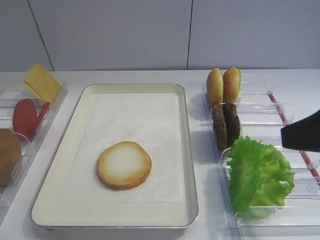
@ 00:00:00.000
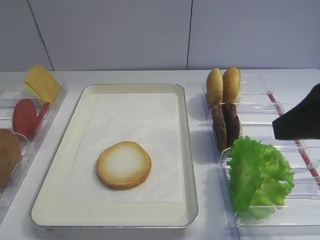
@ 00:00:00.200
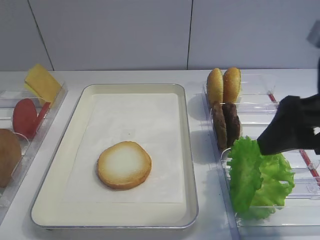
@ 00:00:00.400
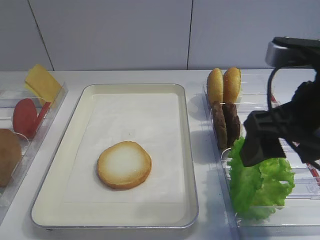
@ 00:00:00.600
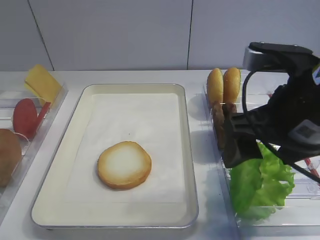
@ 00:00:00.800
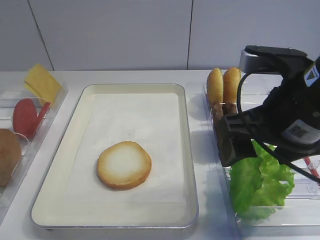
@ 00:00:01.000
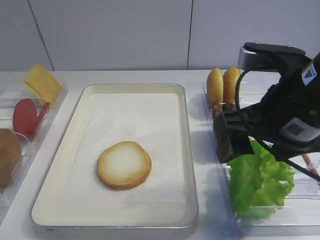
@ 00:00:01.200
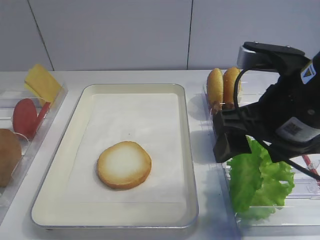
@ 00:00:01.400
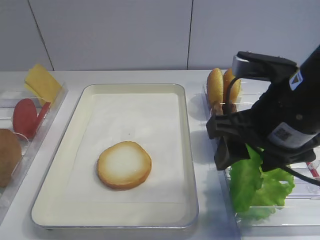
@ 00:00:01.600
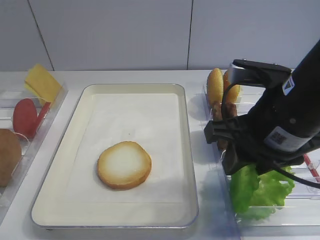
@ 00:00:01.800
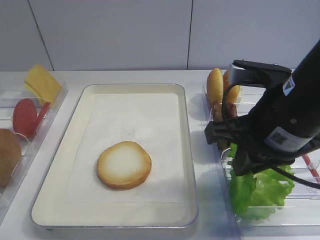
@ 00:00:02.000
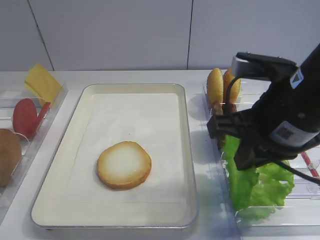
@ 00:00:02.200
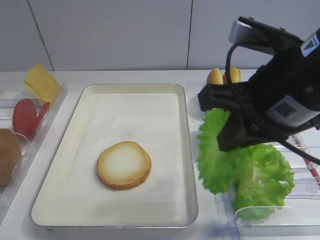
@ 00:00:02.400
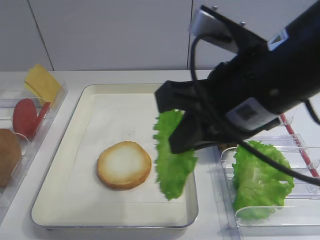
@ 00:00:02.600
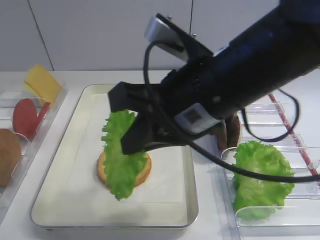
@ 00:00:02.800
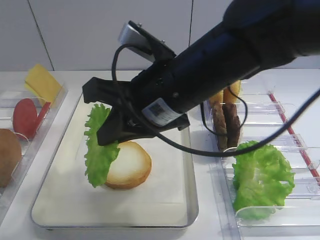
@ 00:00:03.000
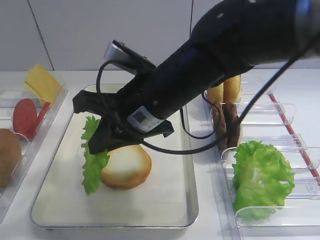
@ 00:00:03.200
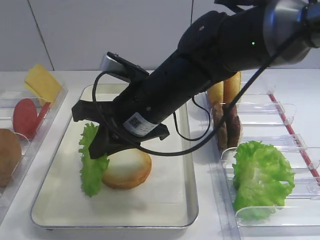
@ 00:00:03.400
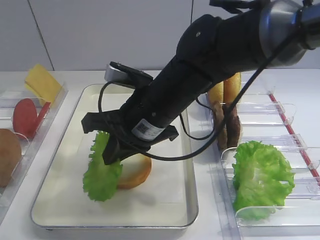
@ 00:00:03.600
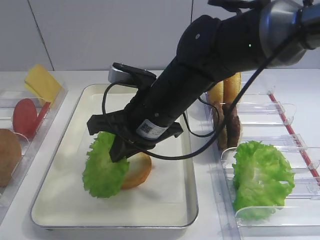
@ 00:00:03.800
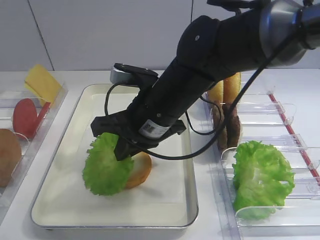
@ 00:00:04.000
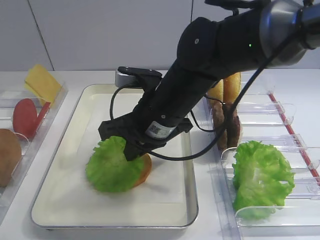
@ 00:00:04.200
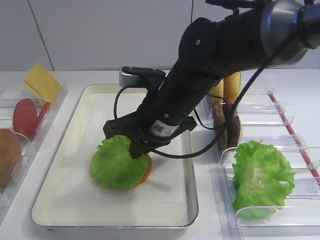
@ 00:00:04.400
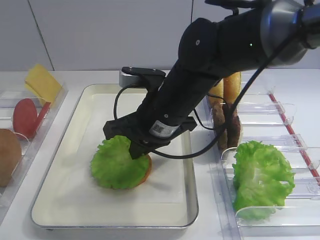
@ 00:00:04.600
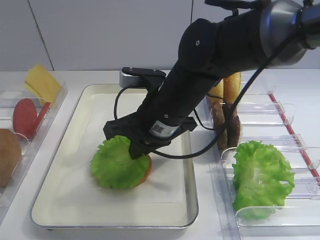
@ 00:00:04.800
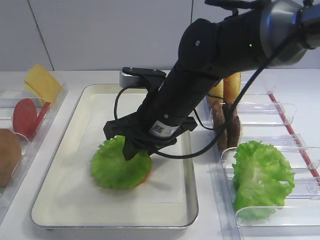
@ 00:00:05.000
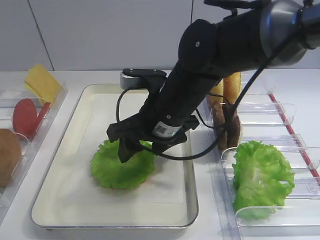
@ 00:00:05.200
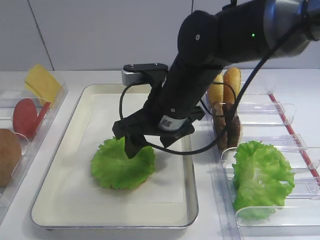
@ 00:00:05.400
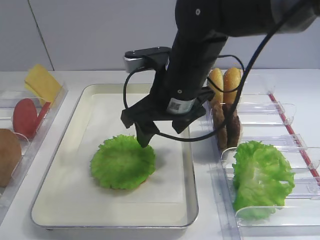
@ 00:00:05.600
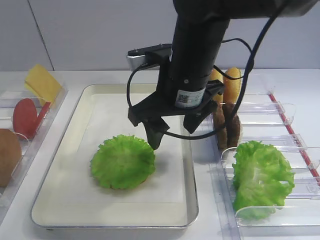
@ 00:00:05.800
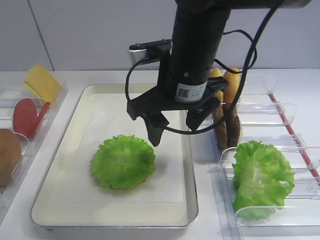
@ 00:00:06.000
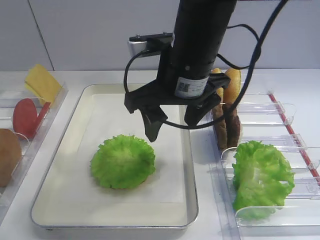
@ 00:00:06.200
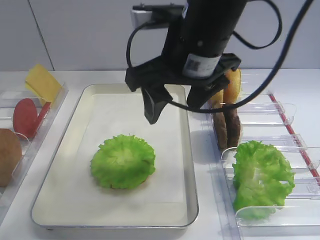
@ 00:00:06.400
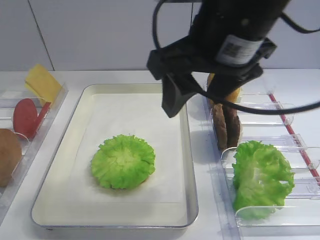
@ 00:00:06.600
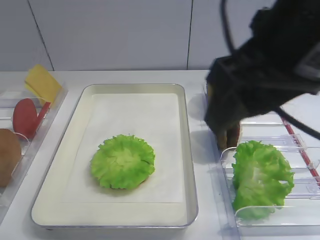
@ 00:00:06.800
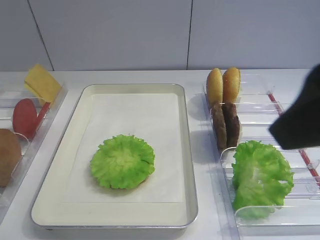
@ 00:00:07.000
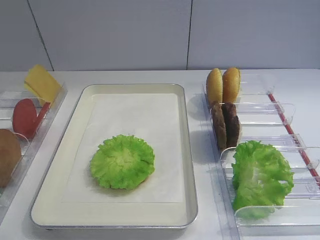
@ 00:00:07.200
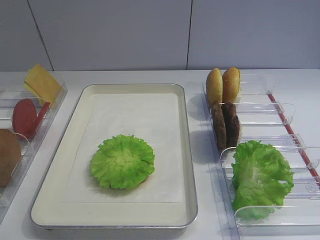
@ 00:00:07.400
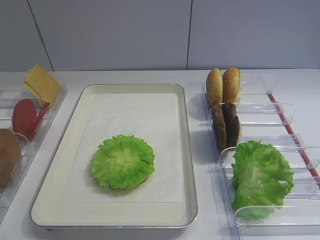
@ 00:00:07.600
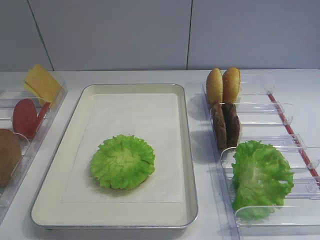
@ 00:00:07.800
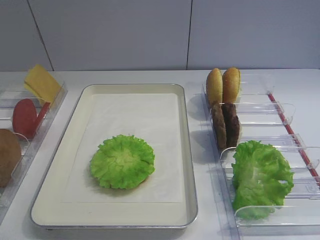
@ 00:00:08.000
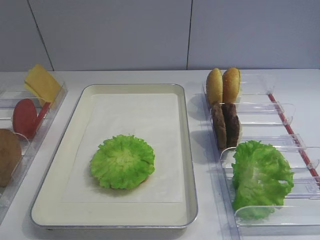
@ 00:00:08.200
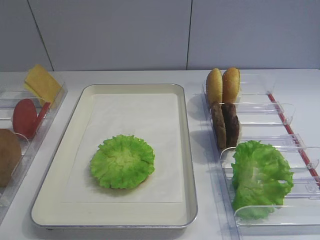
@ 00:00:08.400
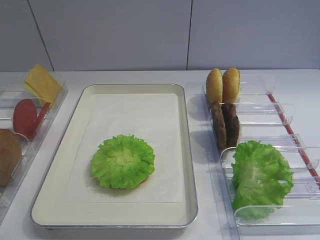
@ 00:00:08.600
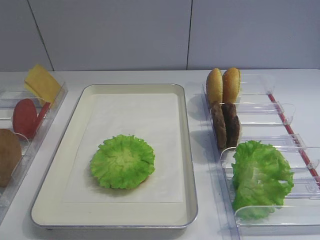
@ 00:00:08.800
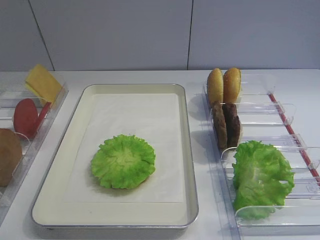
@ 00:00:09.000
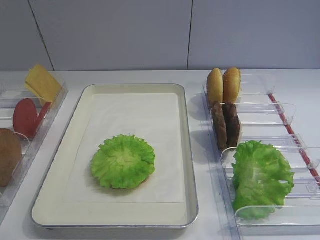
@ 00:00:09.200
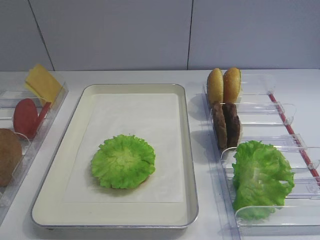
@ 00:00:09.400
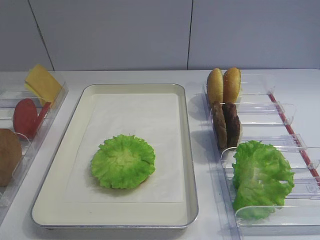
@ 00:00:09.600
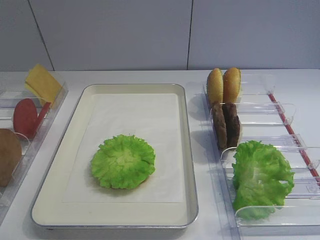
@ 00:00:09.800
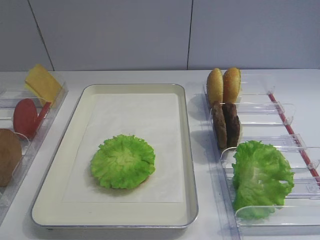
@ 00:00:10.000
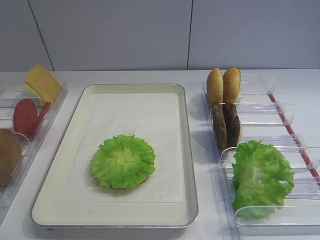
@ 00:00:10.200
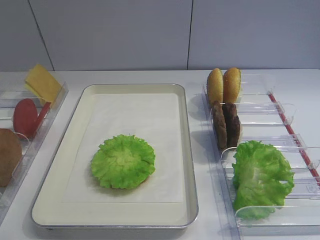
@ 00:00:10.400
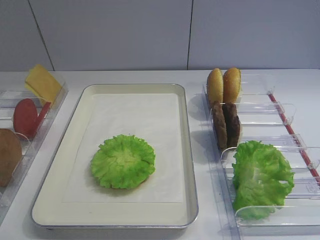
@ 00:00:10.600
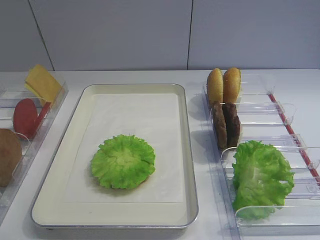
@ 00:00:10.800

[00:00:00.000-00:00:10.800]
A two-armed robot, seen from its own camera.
Step, 00:00:00.000 to 00:00:02.200: Pick up the lettuce leaf with the right gripper.
Step, 00:00:02.600 to 00:00:05.400: Place the lettuce leaf on the bread slice with the right gripper.
00:00:00.000 to 00:00:01.600: The right gripper shifts roughly 10 cm to the left and forward.
00:00:01.600 to 00:00:03.000: The right gripper moves to the left, approximately 10 cm, and closes its fingers.
00:00:03.000 to 00:00:04.600: The right gripper shifts some 10 cm downward and forward.
00:00:04.600 to 00:00:06.200: The right gripper travels upward by some 5 cm, and opens.
00:00:06.200 to 00:00:07.800: The right gripper travels backward and to the right by some 35 cm.
00:00:09.200 to 00:00:10.800: Both grippers stay put.

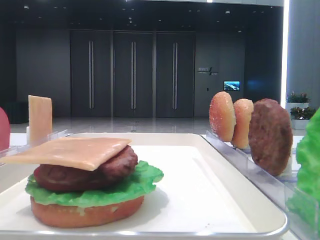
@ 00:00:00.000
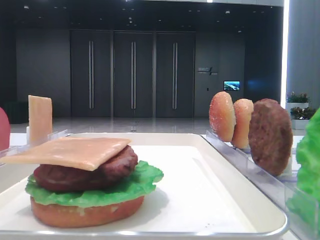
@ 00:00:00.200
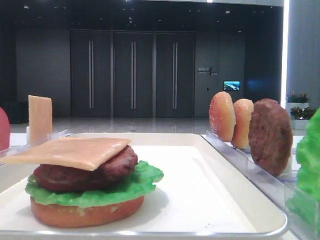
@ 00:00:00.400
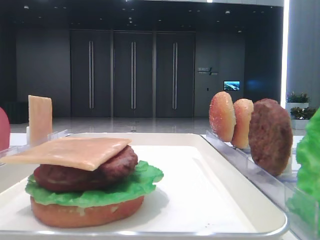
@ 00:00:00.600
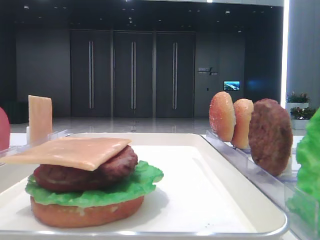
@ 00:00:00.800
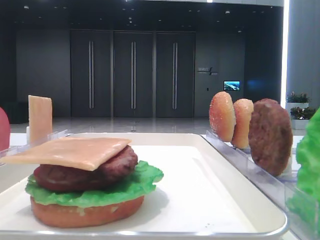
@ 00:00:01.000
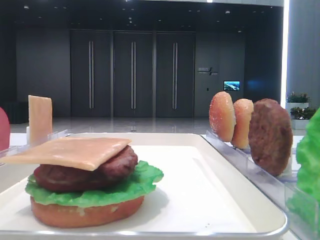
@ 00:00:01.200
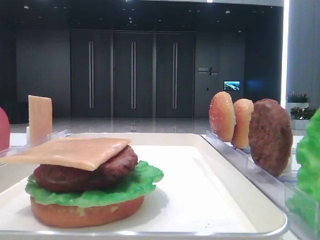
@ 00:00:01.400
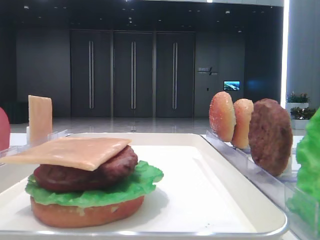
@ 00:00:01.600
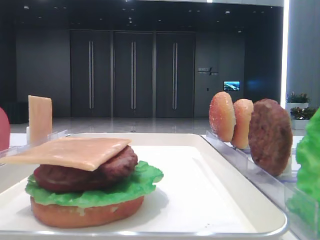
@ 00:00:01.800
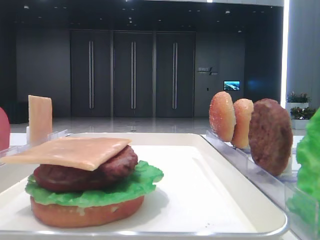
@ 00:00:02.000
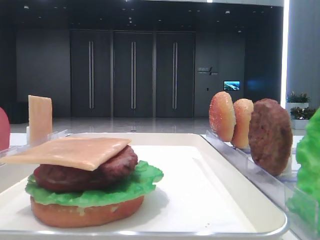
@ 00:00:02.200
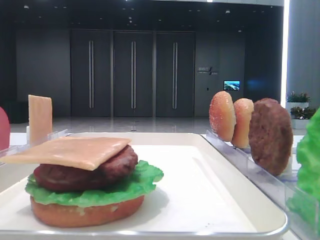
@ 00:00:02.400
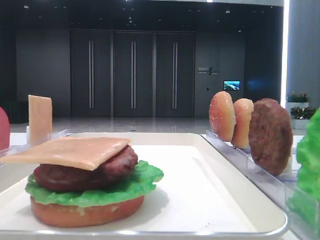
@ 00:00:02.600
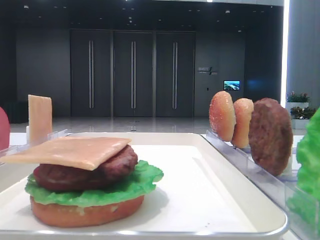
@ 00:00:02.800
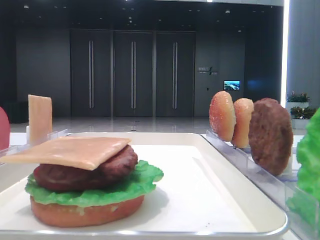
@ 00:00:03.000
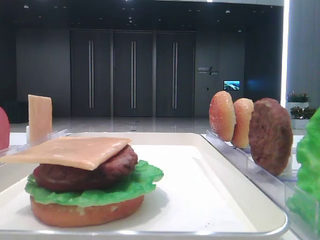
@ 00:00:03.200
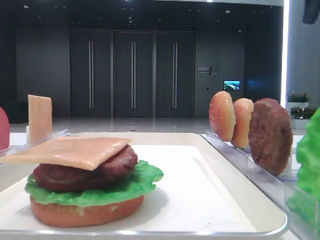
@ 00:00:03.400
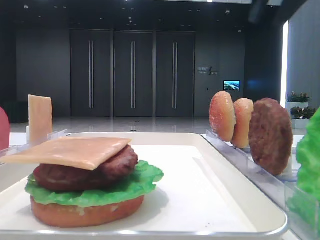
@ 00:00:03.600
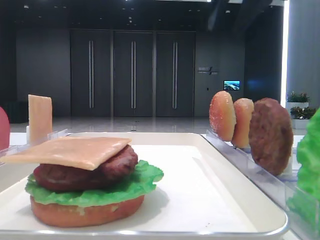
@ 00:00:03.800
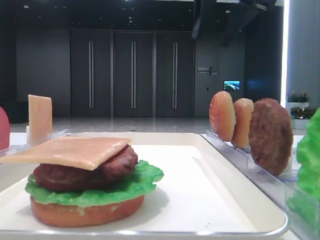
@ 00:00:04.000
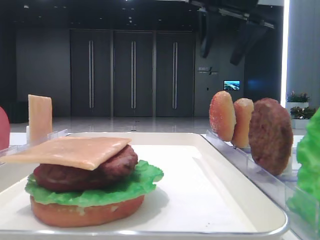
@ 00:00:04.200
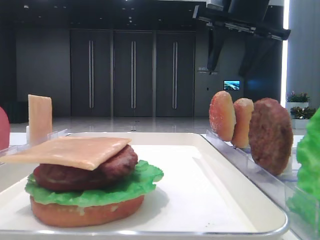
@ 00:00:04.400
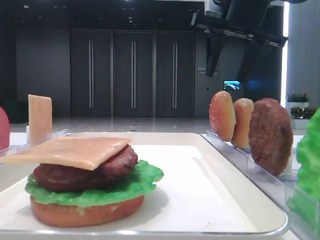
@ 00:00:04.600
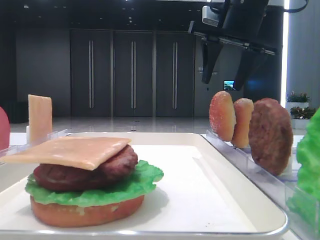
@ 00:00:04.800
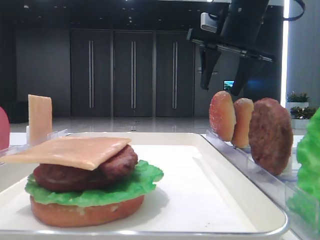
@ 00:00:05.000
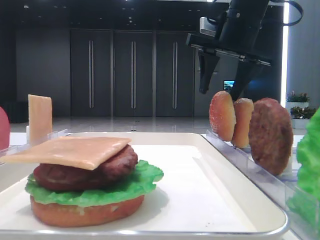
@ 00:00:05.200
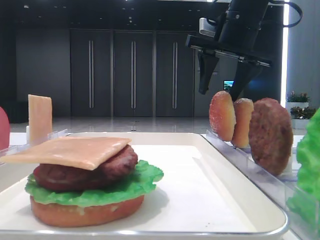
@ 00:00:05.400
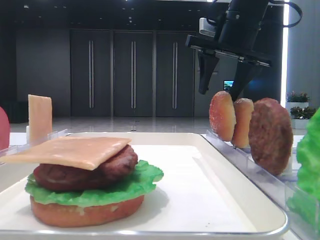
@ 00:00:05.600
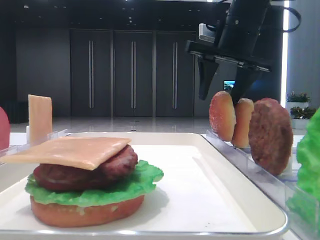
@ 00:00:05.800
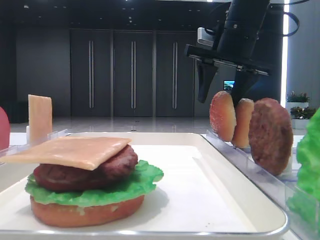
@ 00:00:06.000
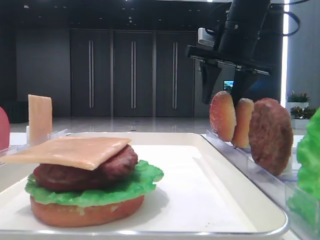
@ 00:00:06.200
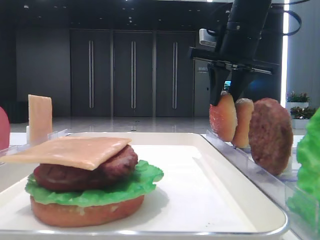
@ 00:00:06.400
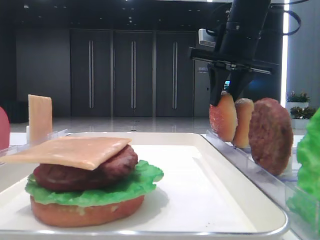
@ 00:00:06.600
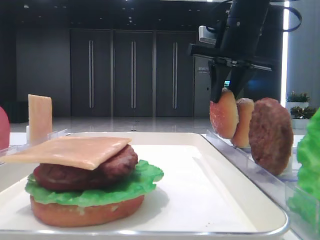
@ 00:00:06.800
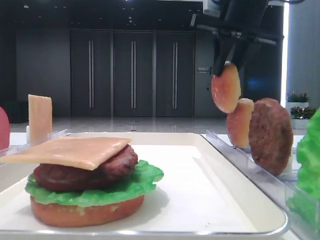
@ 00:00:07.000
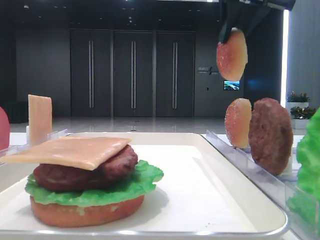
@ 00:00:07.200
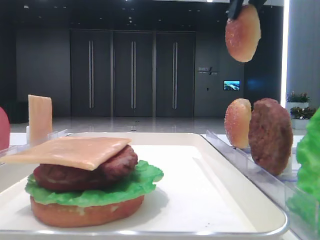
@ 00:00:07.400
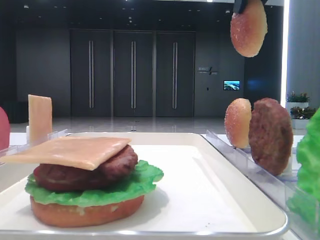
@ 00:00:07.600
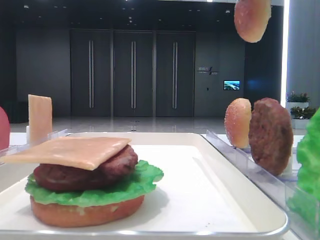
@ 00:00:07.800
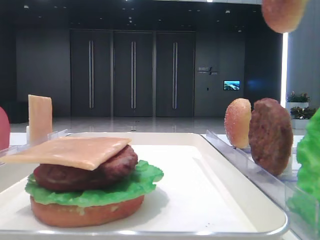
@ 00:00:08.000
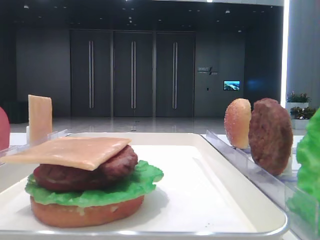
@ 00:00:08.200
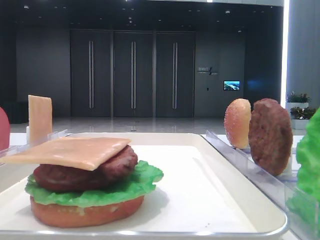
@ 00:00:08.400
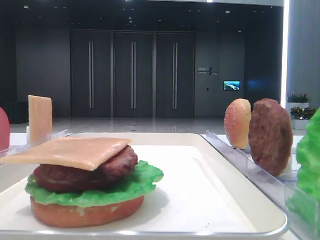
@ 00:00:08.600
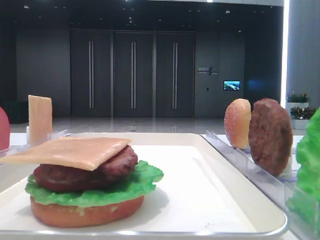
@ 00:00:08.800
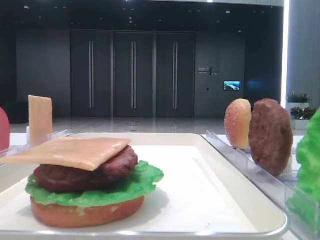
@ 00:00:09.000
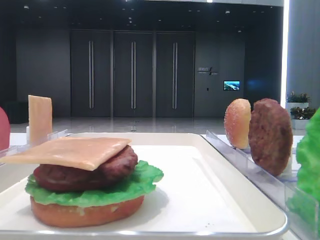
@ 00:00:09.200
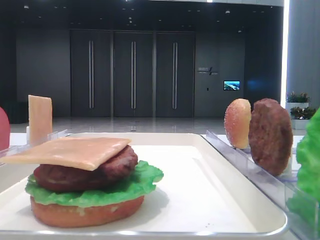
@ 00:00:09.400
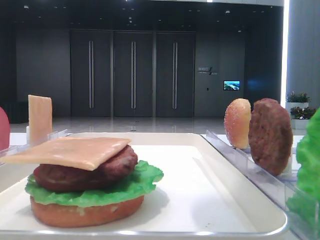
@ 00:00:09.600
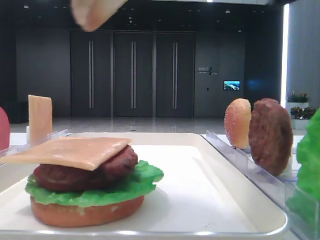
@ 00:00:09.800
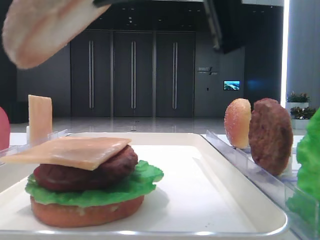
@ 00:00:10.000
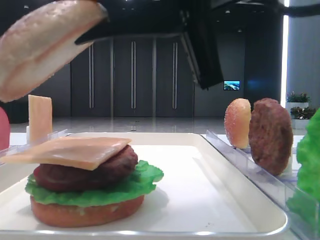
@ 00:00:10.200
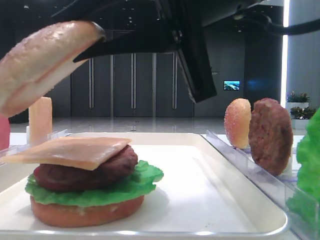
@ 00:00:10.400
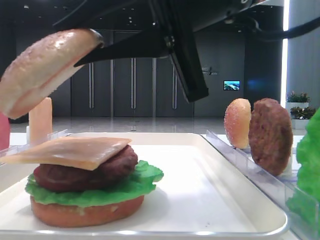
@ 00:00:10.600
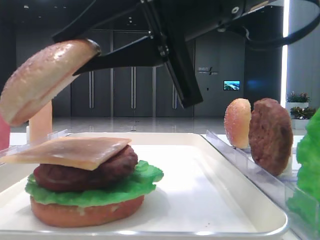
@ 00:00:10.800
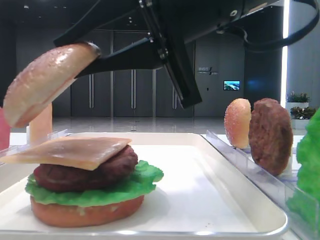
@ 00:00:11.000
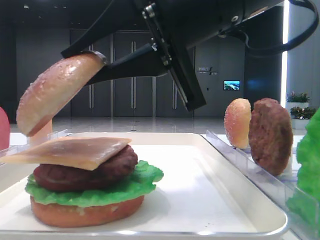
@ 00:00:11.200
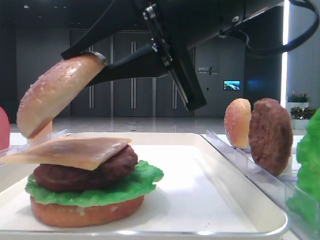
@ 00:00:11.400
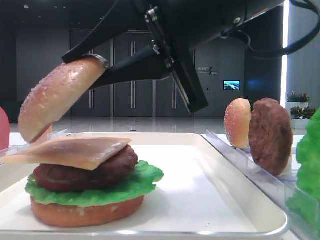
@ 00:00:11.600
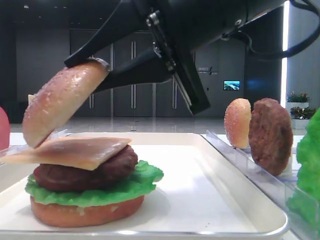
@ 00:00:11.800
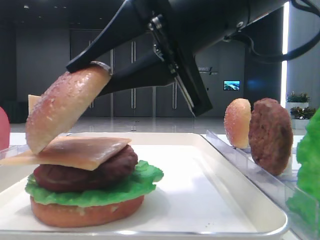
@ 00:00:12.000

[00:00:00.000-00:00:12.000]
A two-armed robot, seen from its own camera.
Step, 00:00:00.000 to 00:00:06.200: Pick up the top bread slice with the right hand.
00:00:03.000 to 00:00:04.400: The right gripper travels to the left, forward and downward by some 15 cm, and opens.
00:00:04.400 to 00:00:06.000: The left gripper closes its fingers, while the right gripper is displaced downward by roughly 5 cm.
00:00:06.000 to 00:00:07.600: The left gripper closes; the right gripper moves upward and backward, approximately 15 cm, and closes its fingers.
00:00:07.600 to 00:00:09.000: The right gripper shifts roughly 25 cm backward.
00:00:09.000 to 00:00:10.400: The right gripper heads to the left, downward and forward, covering some 25 cm.
